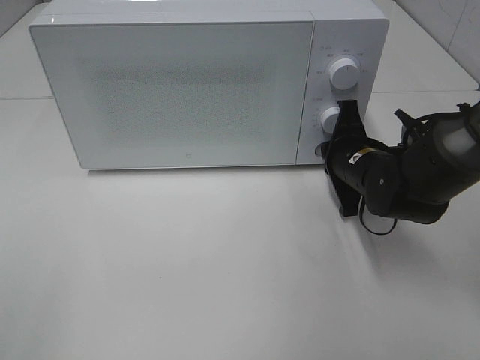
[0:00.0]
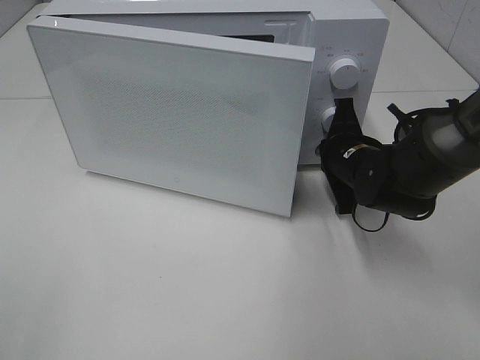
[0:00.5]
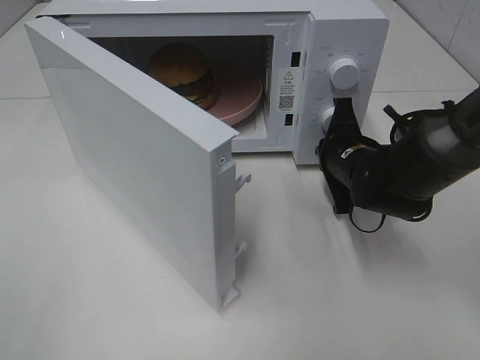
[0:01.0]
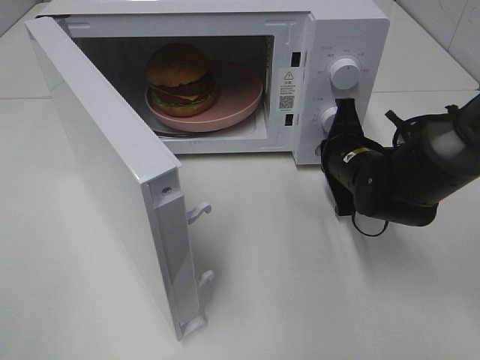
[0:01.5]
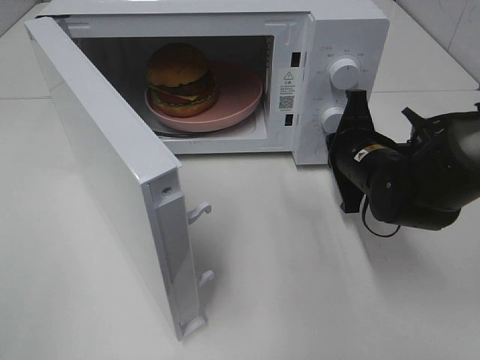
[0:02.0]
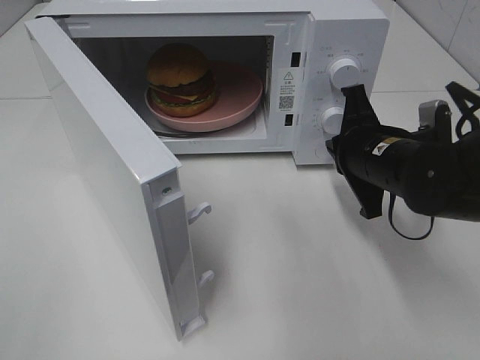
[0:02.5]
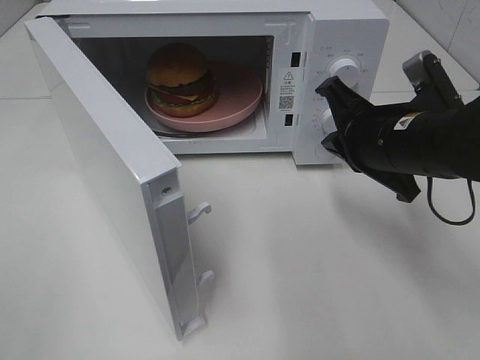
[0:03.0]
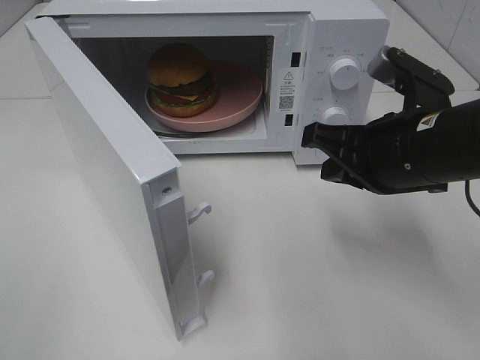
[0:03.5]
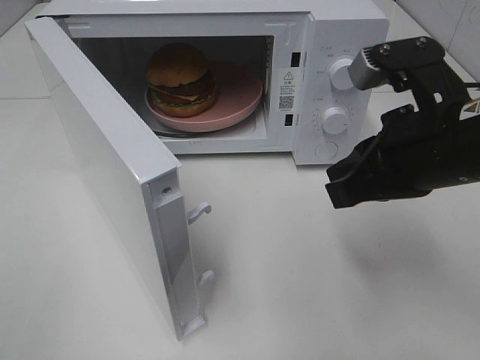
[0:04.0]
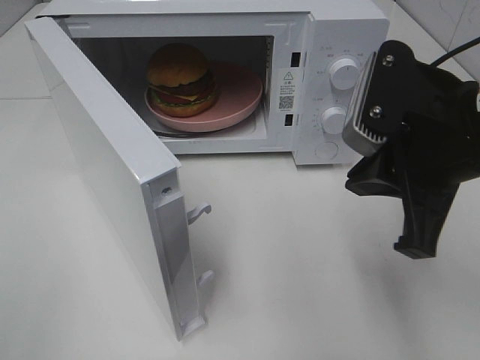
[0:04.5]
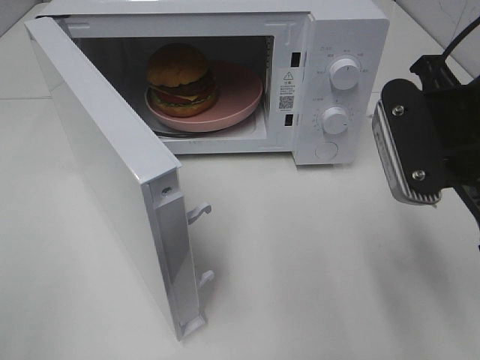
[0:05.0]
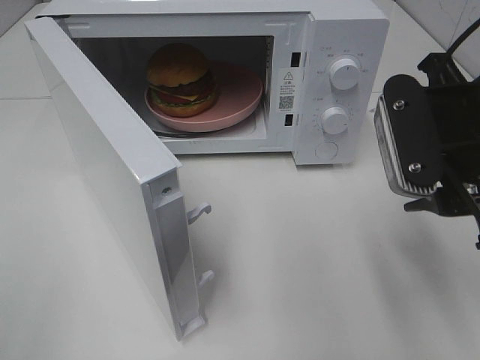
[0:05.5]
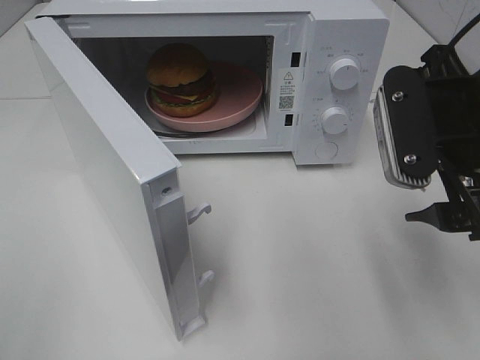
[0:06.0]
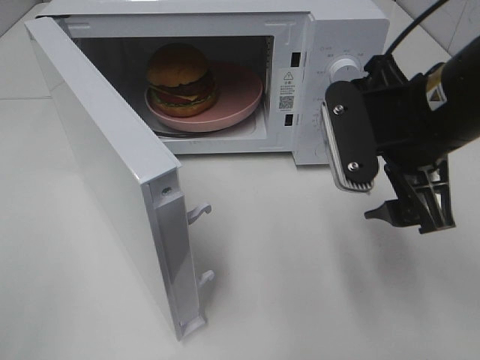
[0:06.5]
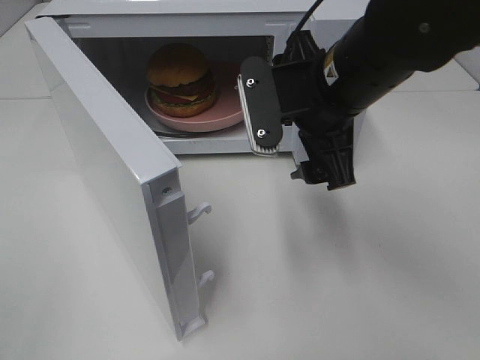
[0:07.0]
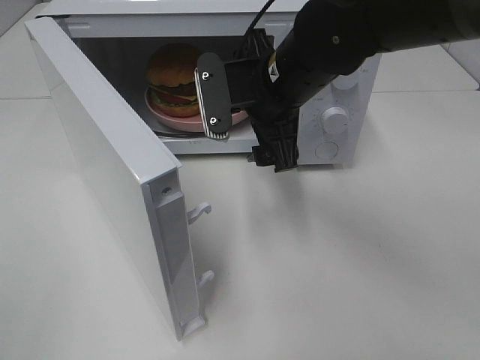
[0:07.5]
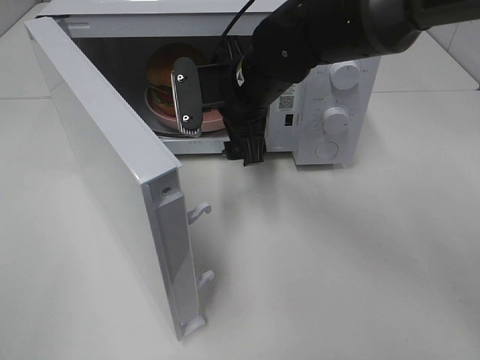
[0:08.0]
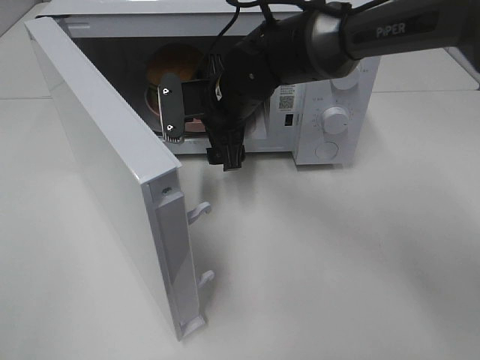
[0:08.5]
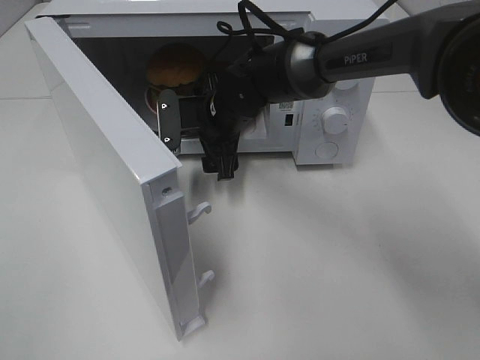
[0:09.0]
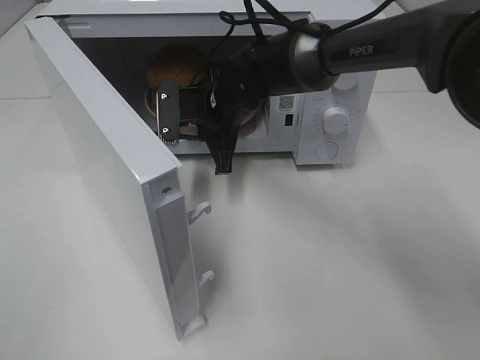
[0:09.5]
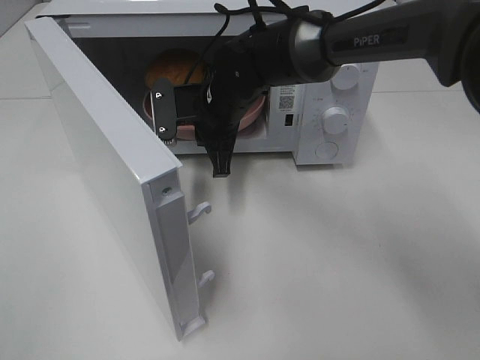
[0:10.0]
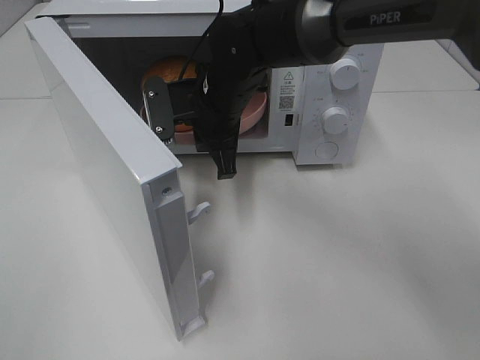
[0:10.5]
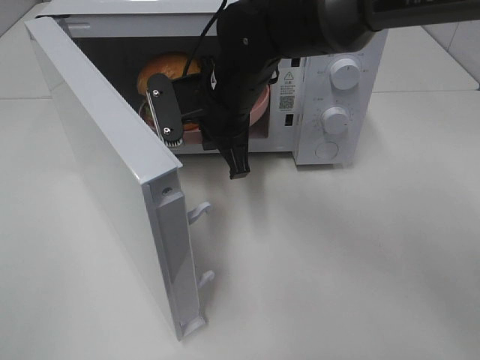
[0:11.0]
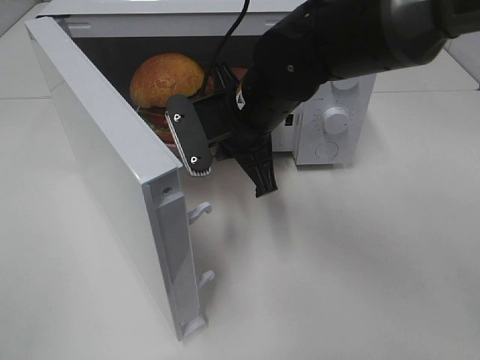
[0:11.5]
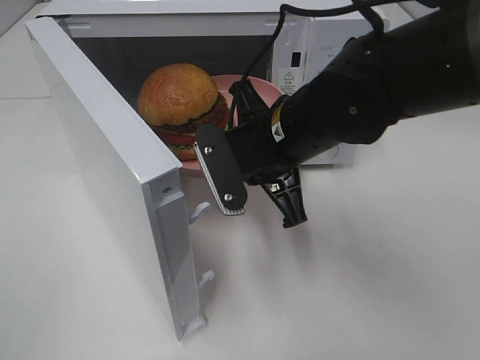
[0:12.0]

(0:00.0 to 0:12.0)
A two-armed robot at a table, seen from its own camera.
Task of the whole recording: Heat the burger.
Step, 0:02.0 - 0:09.5: Right hand: grab the plate with the hamburger.
0:02.0 - 0:04.0: The right gripper heads upward and backward, covering approximately 15 cm.
0:04.0 - 0:06.0: The right gripper opens.
0:06.0 - 0:08.0: The right gripper travels to the left, forward and downward by about 25 cm.
0:08.0 - 0:10.0: The right gripper moves some 5 cm, and closes its fingers.
0:10.0 - 0:12.0: The right gripper travels backward and to the right by roughly 15 cm.

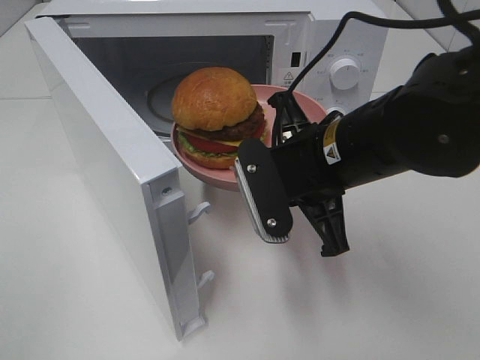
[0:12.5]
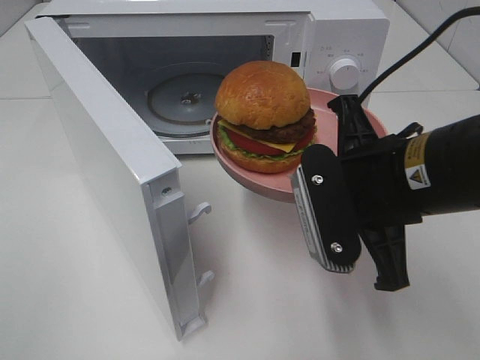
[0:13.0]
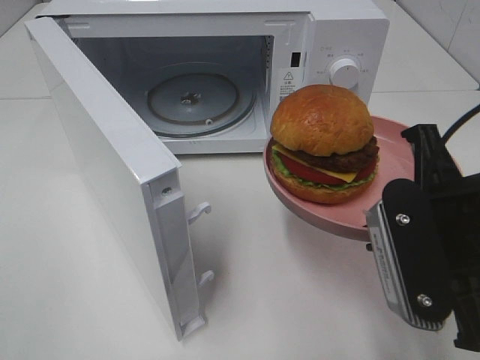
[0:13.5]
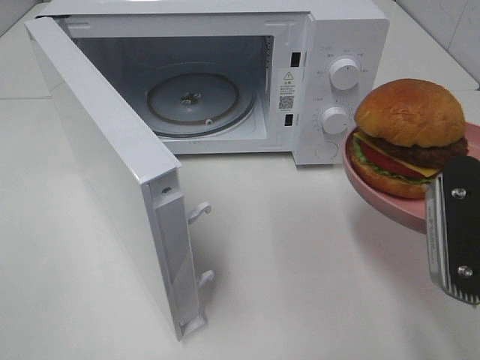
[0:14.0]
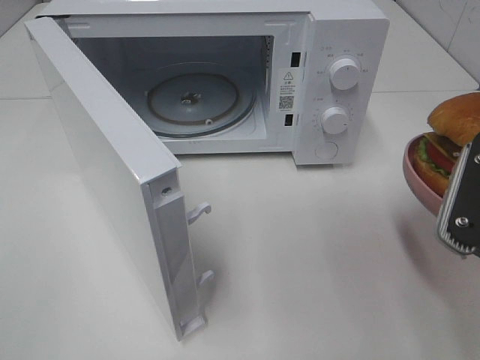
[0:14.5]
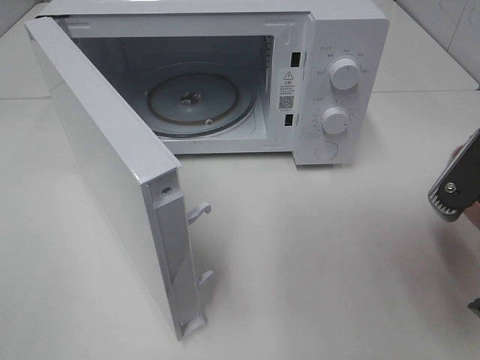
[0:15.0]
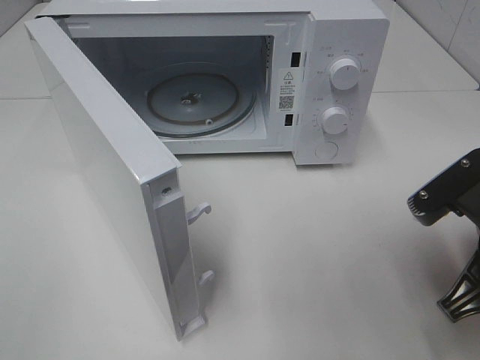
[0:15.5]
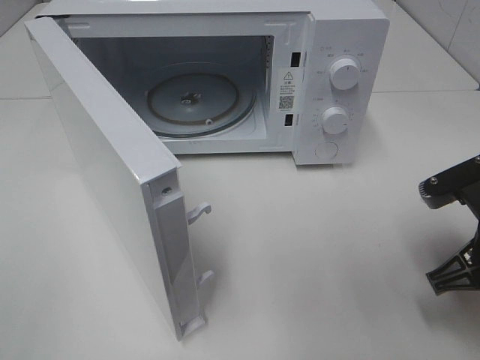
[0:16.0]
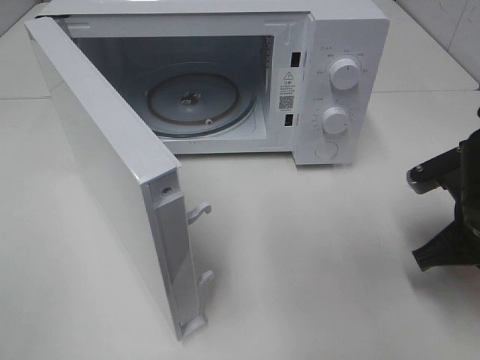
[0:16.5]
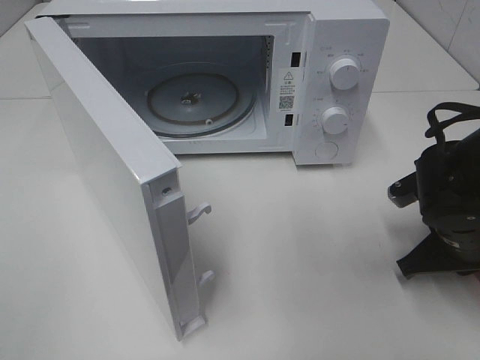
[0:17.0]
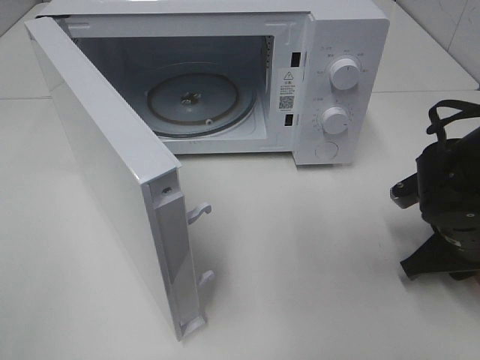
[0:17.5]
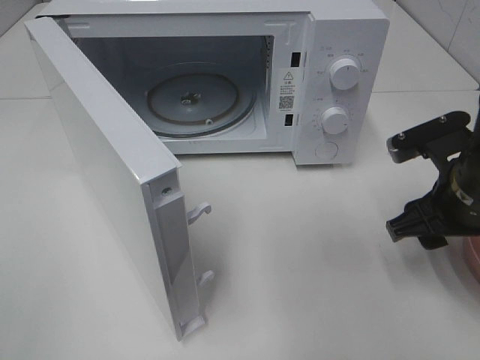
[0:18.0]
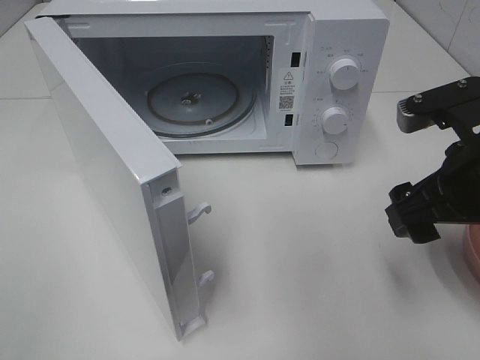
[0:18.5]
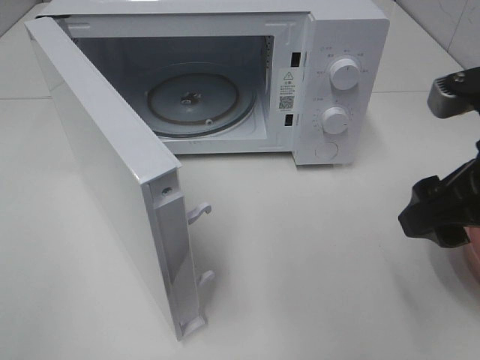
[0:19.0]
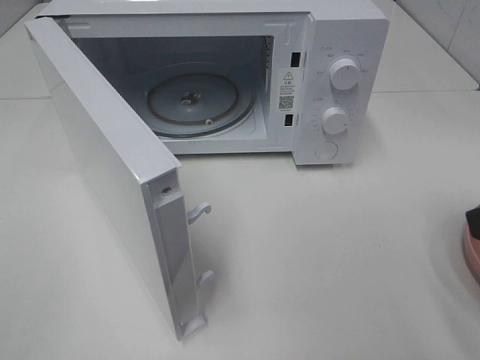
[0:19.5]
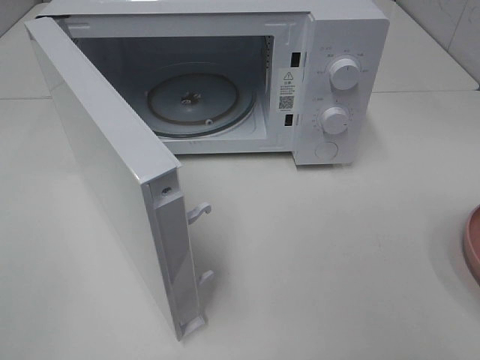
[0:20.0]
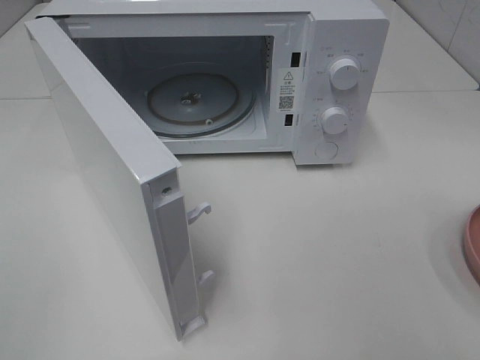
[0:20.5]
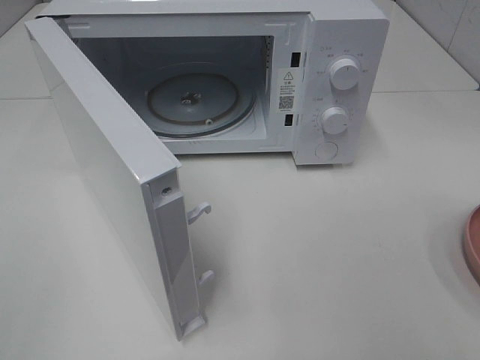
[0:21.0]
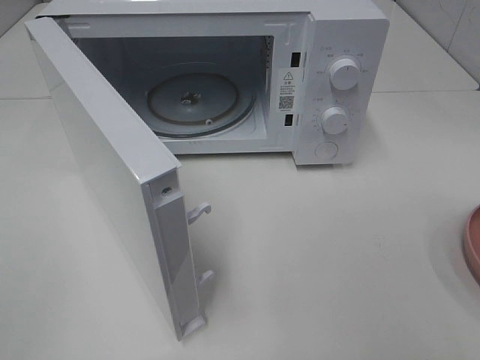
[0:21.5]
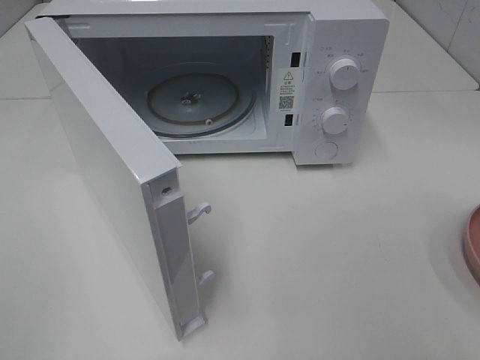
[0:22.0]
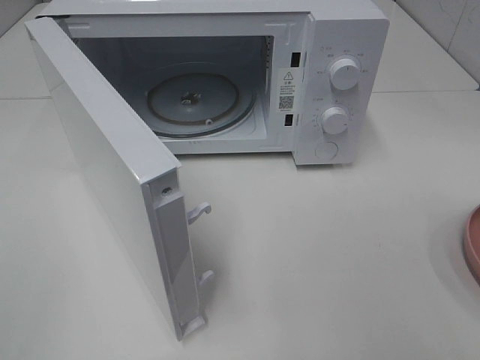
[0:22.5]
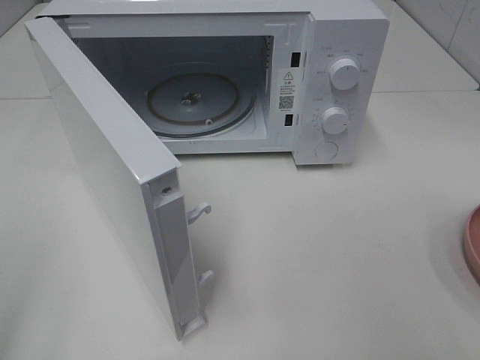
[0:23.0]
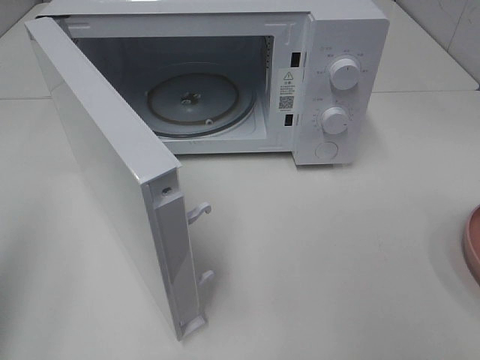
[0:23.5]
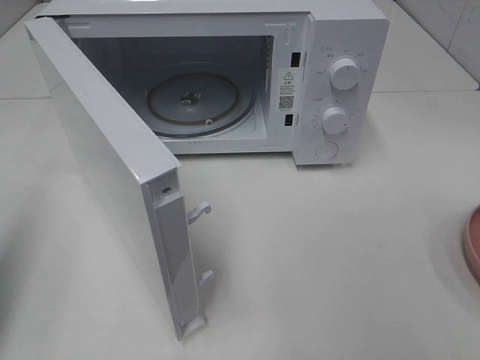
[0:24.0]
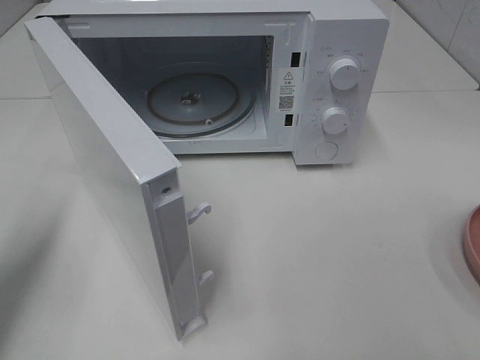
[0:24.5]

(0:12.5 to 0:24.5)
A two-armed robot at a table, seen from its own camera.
Task of the whole recording: Heat the burger.
Step, 0:12.5 - 0:17.5: Right hand: place the plate on the table.
0:12.5 - 0:14.5: The right gripper travels to the right and backward by about 15 cm.
0:14.5 - 0:16.5: The right gripper is displaced downward and forward by approximately 15 cm.
0:16.5 - 0:18.5: The right gripper moves upward, roughly 10 cm, and opens up.
0:18.5 - 0:20.5: The right gripper is displaced backward and to the right by approximately 20 cm.
0:20.5 - 0:22.5: Neither gripper changes place.
0:22.5 - 0:24.5: The left gripper travels forward by roughly 20 cm, and closes up.

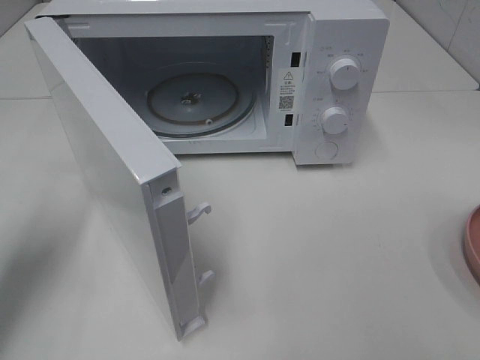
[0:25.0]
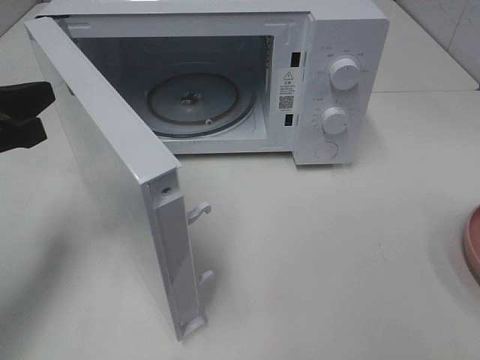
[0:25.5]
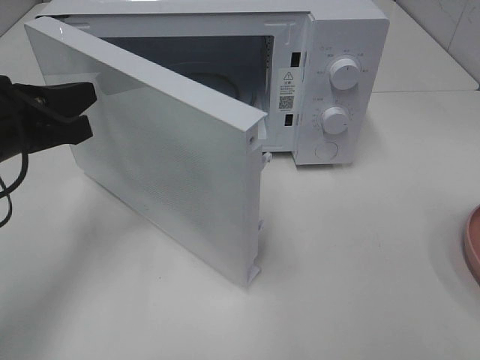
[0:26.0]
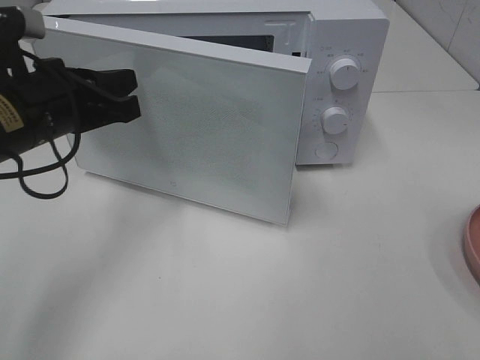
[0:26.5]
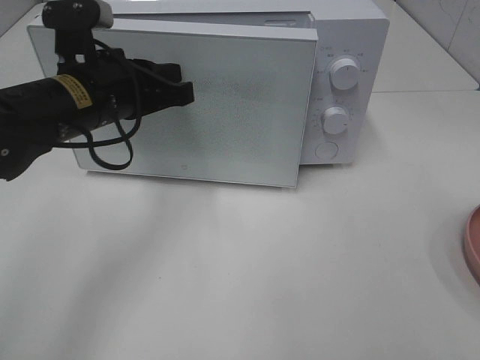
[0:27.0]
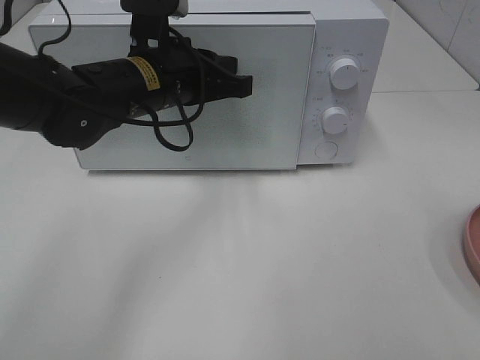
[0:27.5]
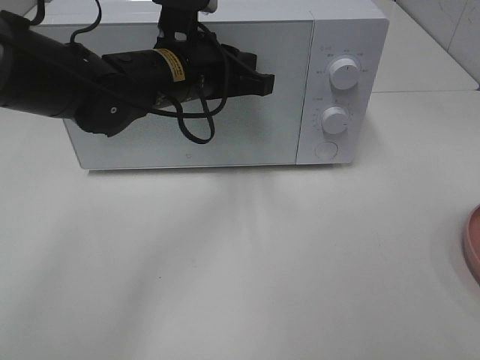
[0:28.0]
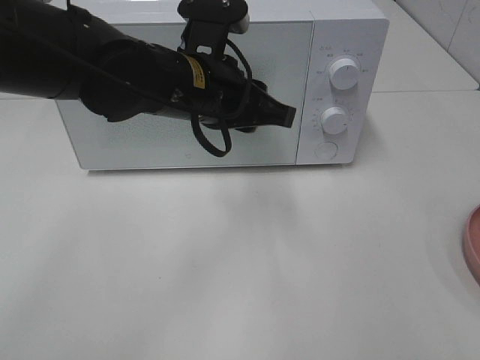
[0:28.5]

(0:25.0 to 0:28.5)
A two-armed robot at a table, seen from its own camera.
Task of the whole recording: Heat the burger.
Step, 0:25.0 - 0:27.5: Left hand: close the microwave door.
0:25.0 - 0:27.0: The left gripper shifts some 20 cm to the right and forward.
0:27.0 - 0:28.5: The left gripper moves to the right, some 10 cm.
